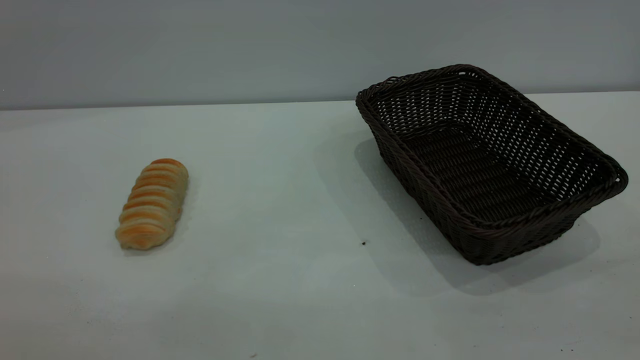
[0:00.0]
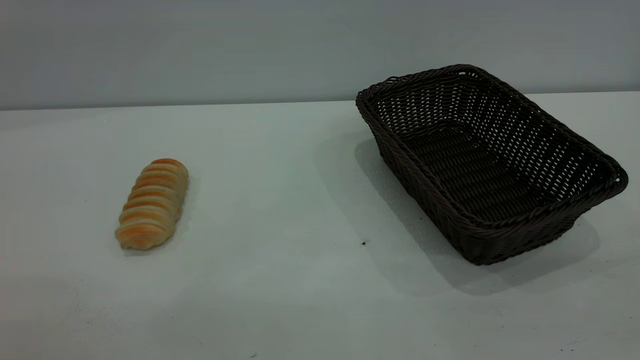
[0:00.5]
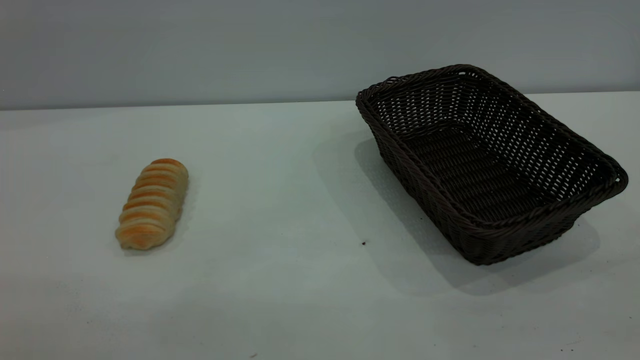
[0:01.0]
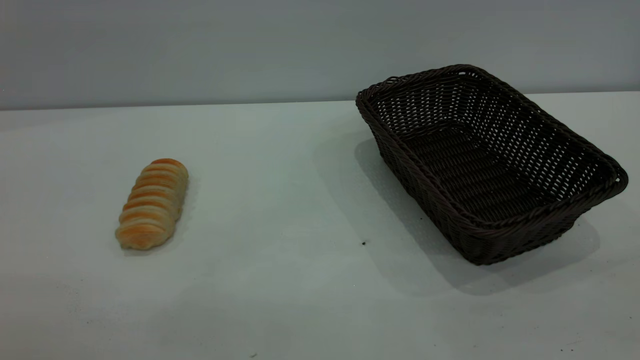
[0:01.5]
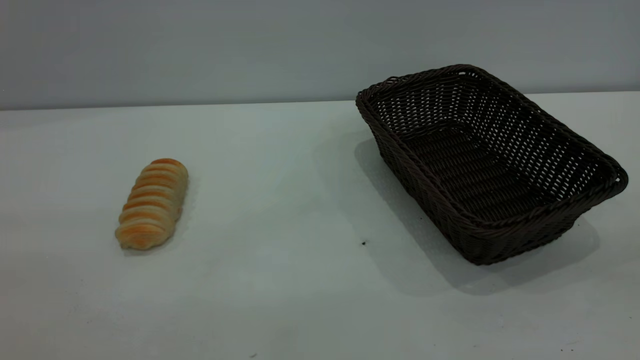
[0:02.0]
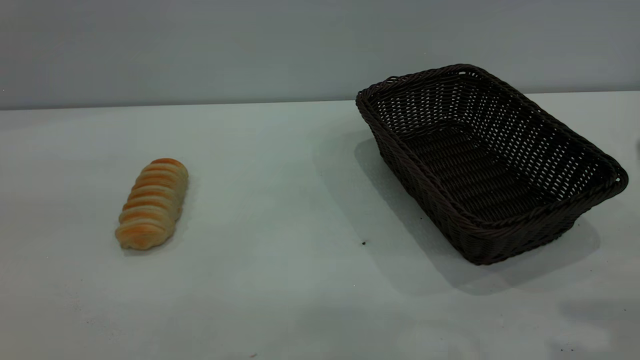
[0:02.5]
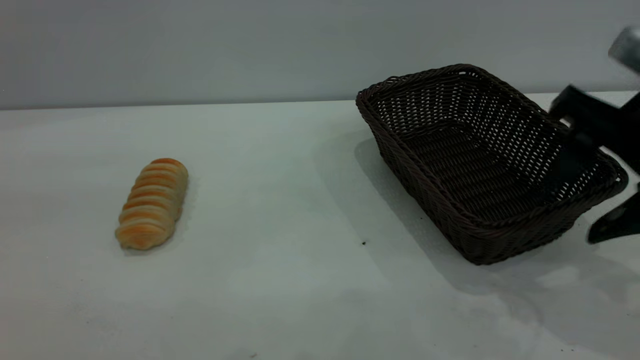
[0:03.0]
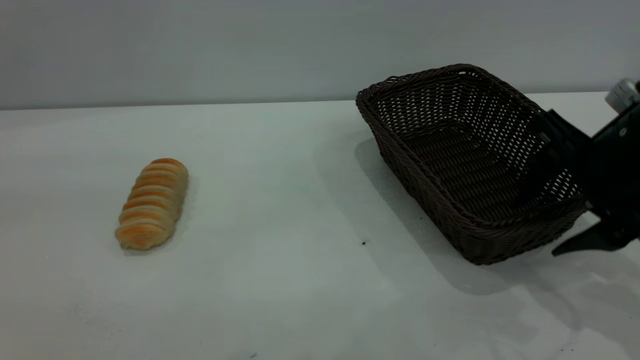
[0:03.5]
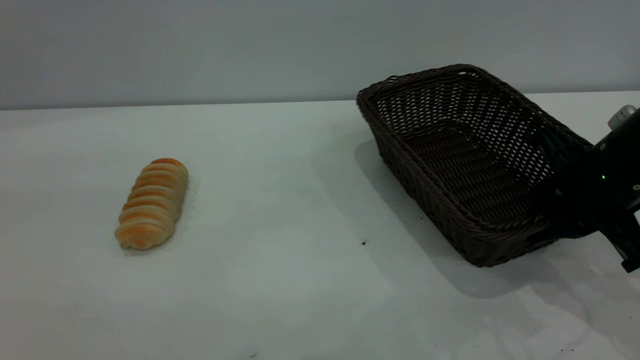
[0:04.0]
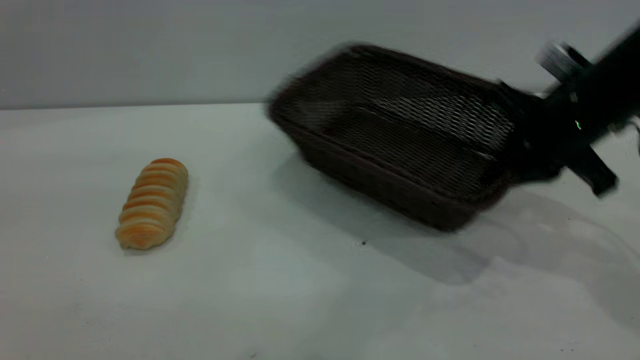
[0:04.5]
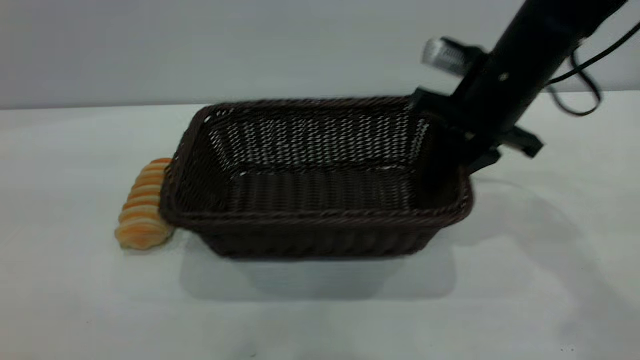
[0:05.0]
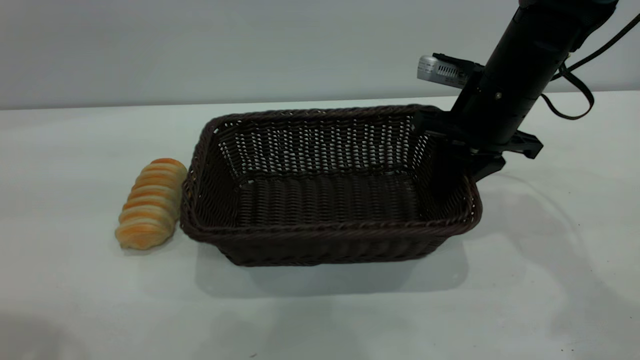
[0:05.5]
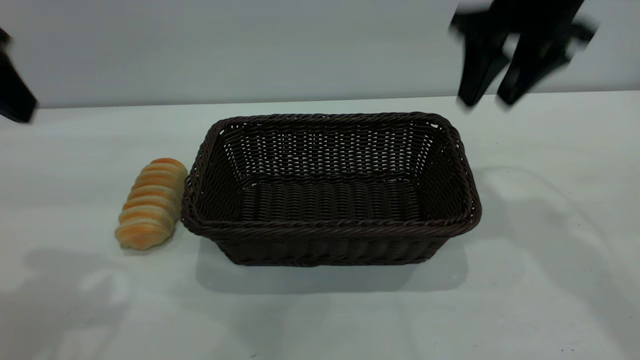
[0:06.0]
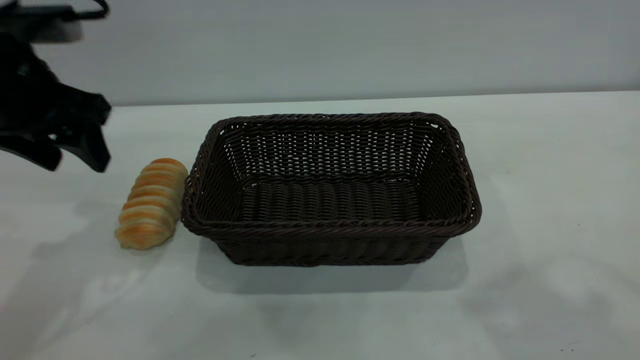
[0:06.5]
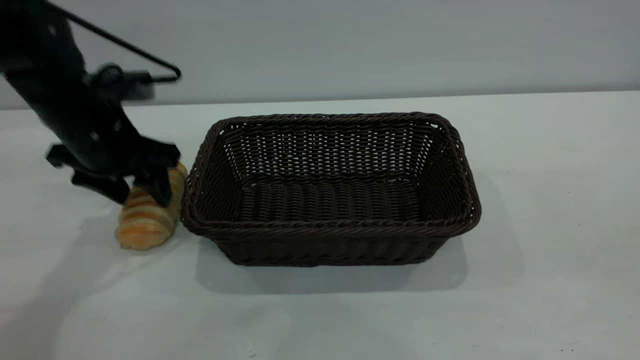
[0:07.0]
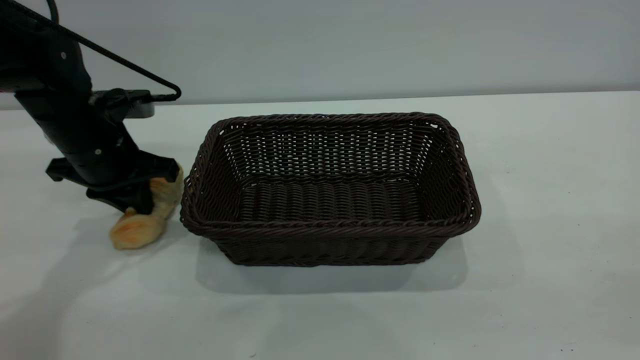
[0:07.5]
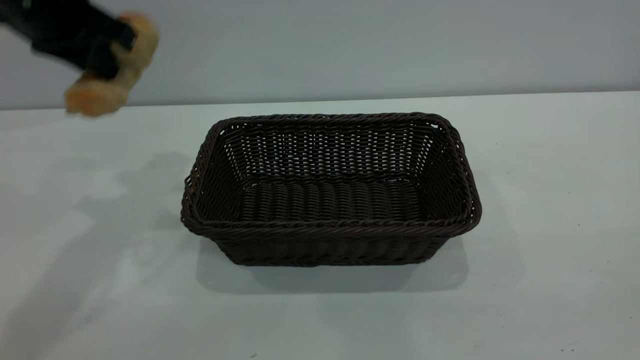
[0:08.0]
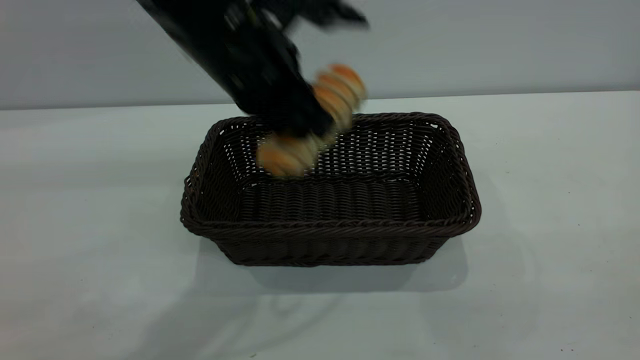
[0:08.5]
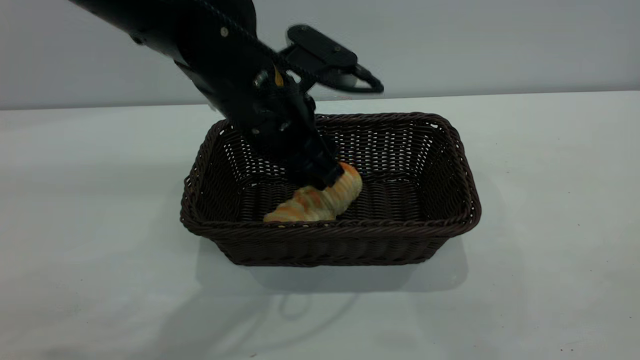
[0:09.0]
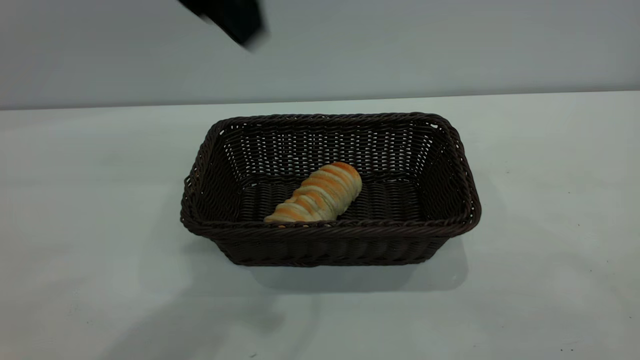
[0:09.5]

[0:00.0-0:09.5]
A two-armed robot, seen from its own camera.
Task of the whole recording: One hand grasps the black basket and places it in the middle of the table, while the other hand picks up the long bread and puts it into the black basket.
Step, 0:00.0 to 0:05.5: Move the basket to the center of view.
Step, 0:08.5 to 0:09.0: place the bread into the basket.
0:02.0 to 0:04.0: The right gripper is displaced forward and downward by roughly 35 cm, and closes.
0:04.0 to 0:05.5: The right gripper heads forward and to the left, covering approximately 15 cm, while the left gripper is displaced forward by some 5 cm.
0:05.5 to 0:07.5: The left gripper heads downward and forward, covering about 35 cm, and closes; the right gripper goes about 40 cm backward and upward, and opens up.
0:07.5 to 0:09.5: The left gripper goes up and down, some 25 cm each way, reversing 2 times, and opens up, while the right gripper shifts by some 5 cm.
